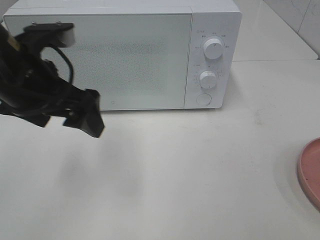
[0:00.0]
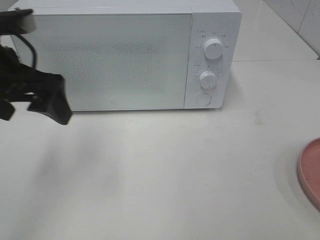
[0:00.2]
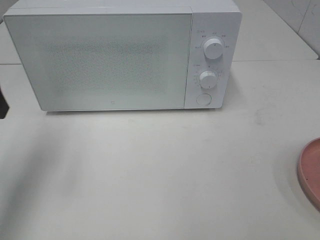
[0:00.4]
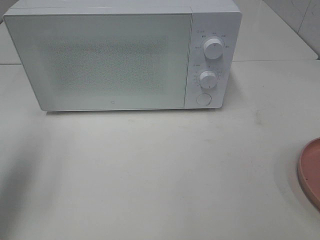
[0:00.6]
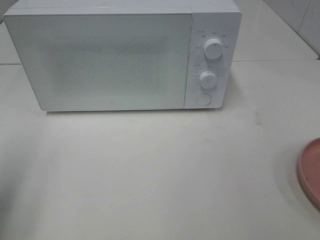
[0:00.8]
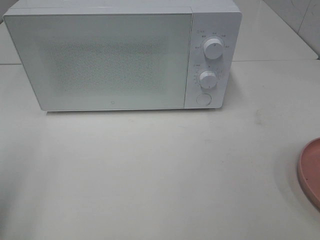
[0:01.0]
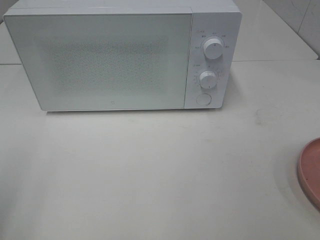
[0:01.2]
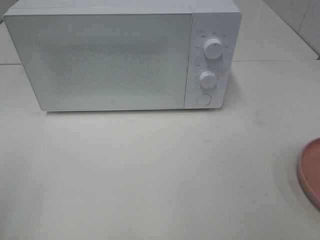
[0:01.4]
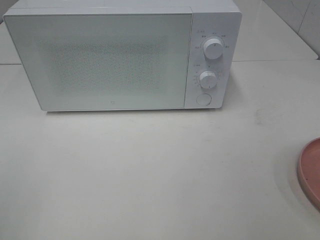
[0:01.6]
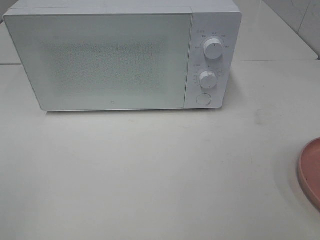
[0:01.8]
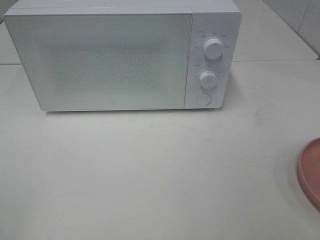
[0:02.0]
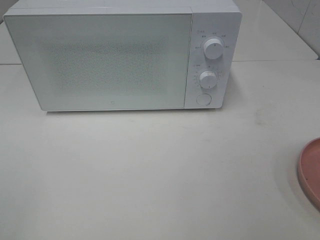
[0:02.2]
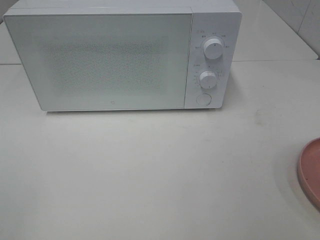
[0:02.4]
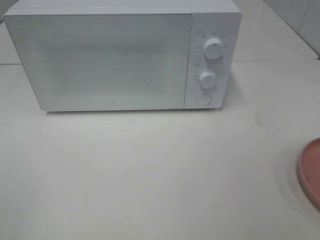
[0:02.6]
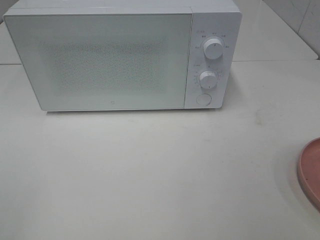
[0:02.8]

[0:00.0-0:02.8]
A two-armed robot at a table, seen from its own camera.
Task of the whole recording: Heat the burger.
0:00.0 to 0:01.4: The left gripper moves backward and to the left, about 25 cm.

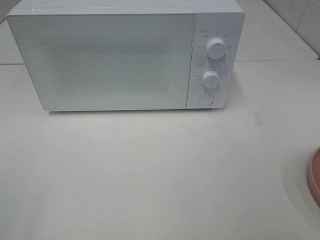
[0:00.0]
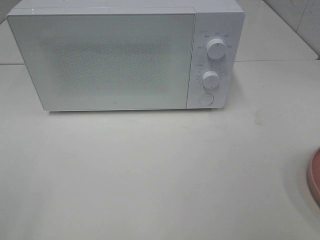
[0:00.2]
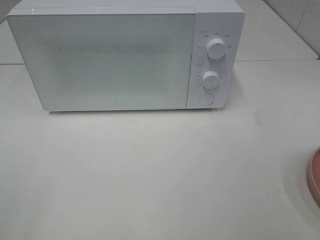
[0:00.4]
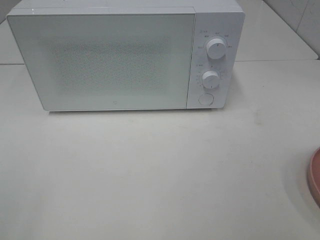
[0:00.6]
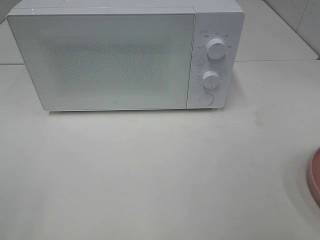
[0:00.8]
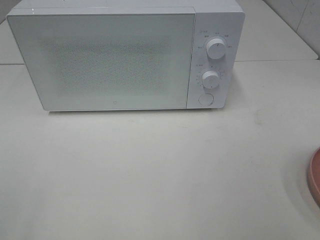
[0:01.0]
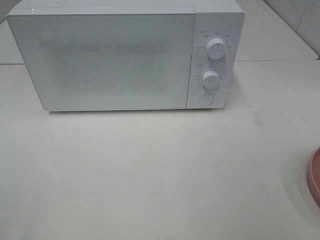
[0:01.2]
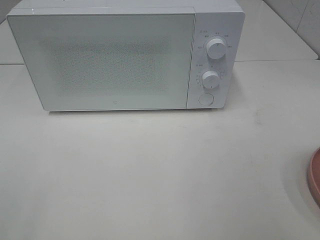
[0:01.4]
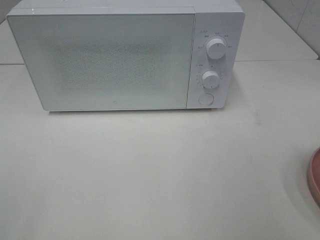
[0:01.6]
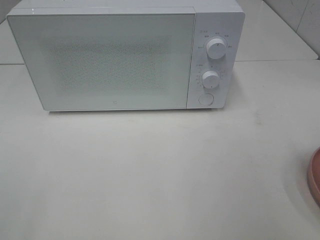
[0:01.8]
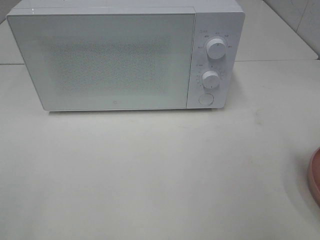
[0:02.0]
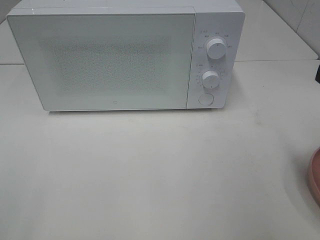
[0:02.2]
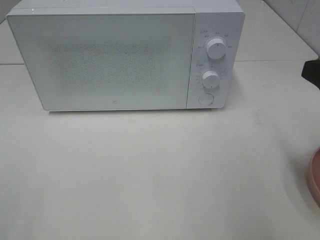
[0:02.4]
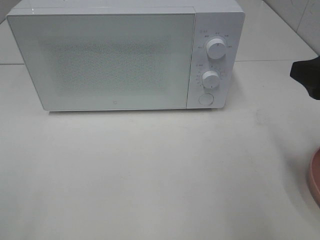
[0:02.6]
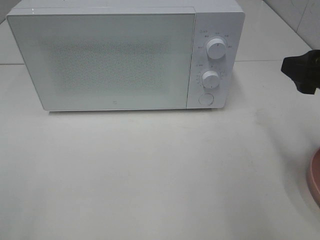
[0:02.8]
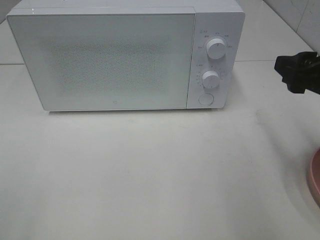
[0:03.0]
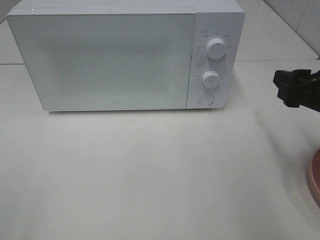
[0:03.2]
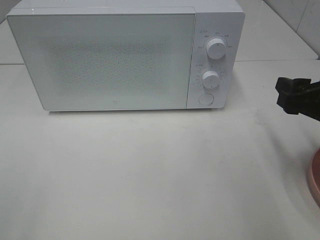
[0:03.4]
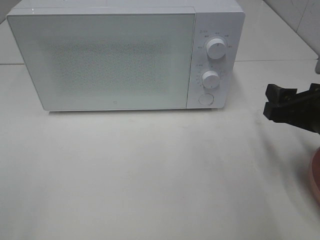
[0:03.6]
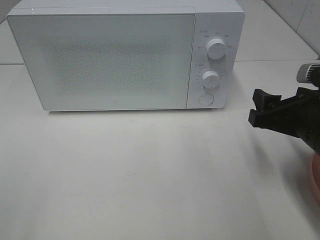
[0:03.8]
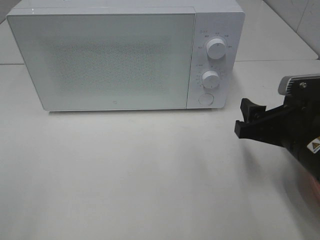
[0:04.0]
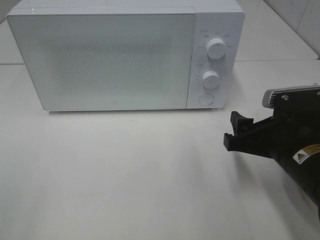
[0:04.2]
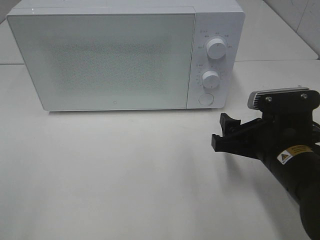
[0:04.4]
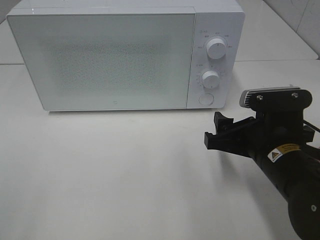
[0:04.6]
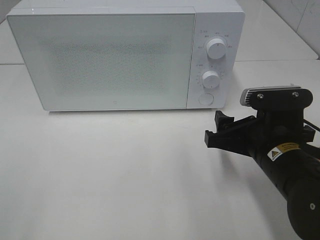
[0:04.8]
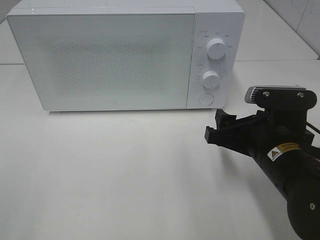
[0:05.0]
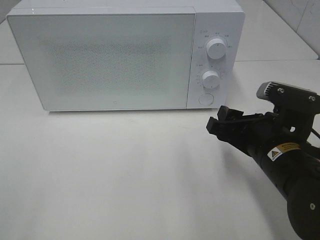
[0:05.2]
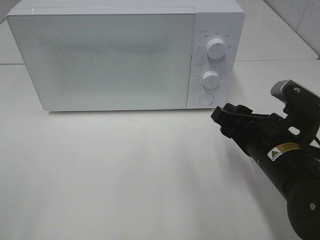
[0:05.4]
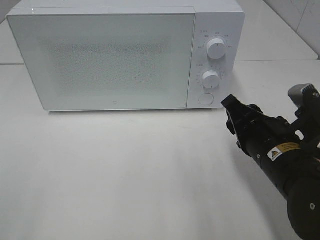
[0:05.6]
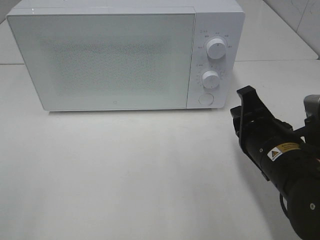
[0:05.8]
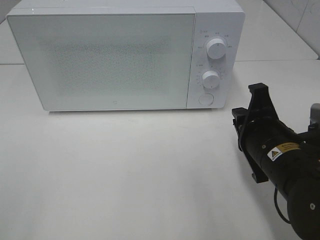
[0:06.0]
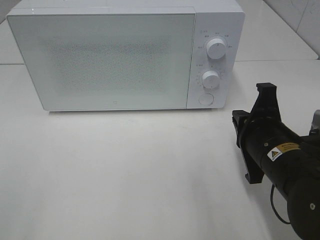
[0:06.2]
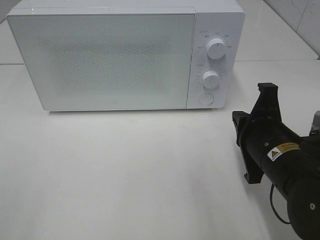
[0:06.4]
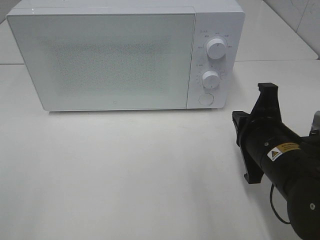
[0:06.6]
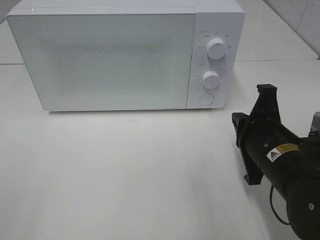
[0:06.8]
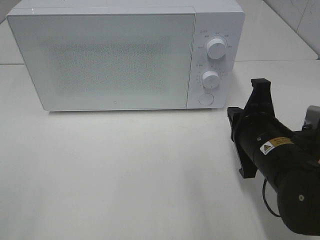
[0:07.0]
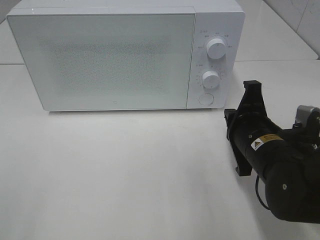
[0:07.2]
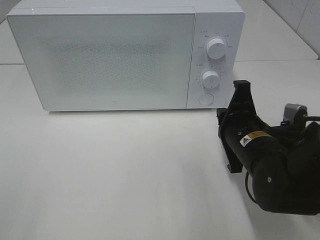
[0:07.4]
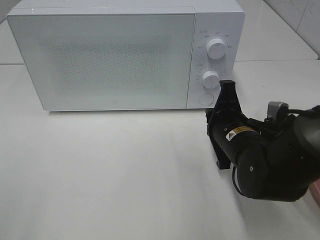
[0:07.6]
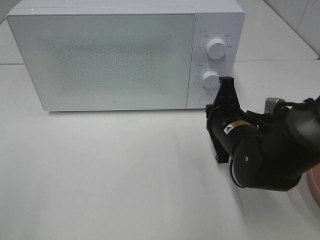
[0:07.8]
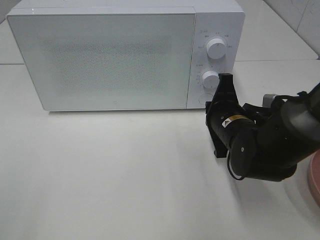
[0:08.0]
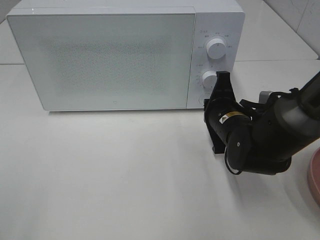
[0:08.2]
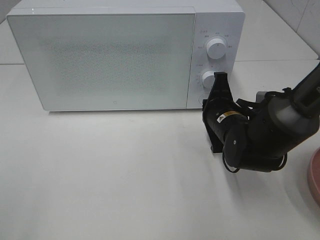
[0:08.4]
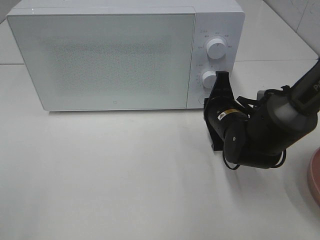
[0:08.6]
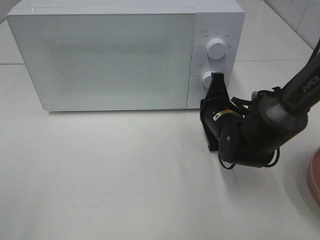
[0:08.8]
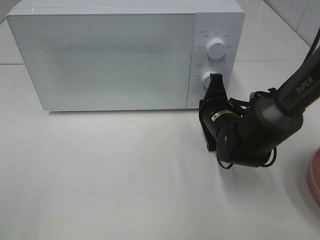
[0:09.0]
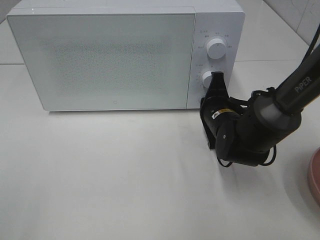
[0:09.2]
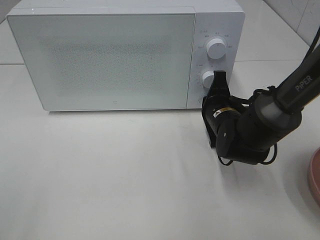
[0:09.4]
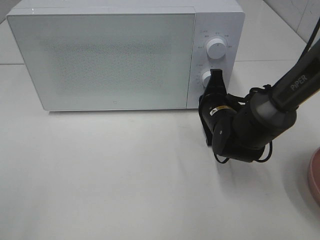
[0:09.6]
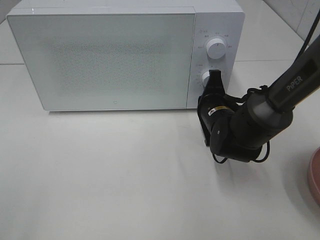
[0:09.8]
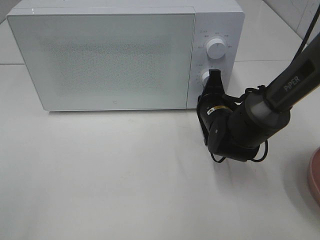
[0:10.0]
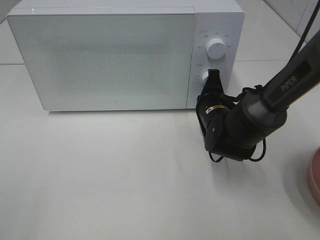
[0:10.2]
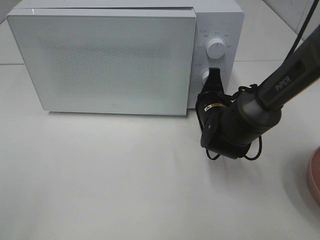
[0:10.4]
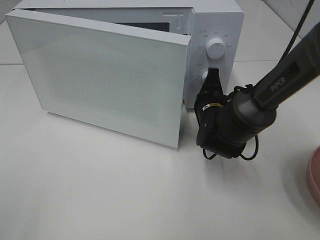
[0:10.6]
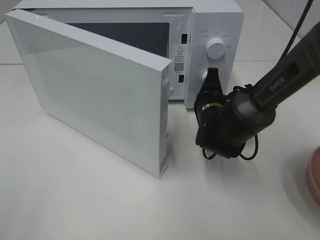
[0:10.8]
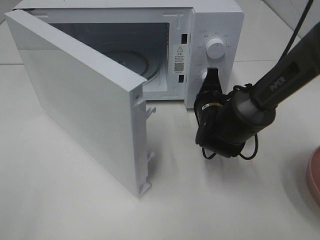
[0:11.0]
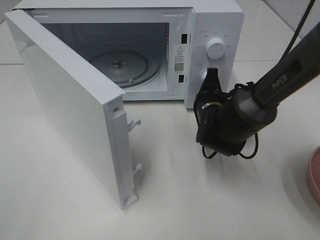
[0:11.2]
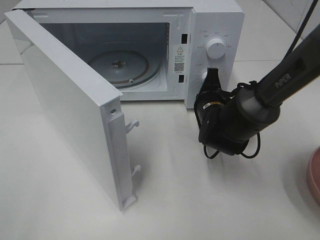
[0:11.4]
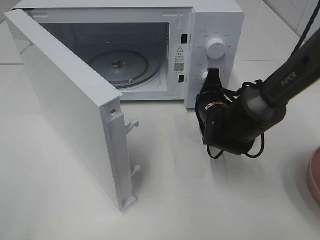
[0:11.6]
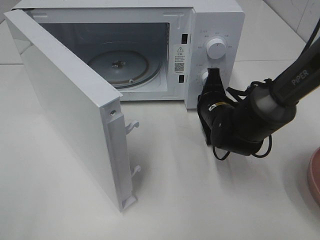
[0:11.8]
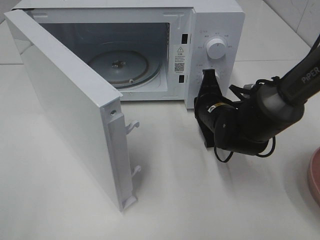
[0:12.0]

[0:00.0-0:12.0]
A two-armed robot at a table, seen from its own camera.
Task of the whole recording: Heat the burger.
Step, 0:00.0 to 0:11.8: Right hand: press the switch.
0:01.6 to 0:03.0: The right gripper moves forward and downward, some 15 cm.
0:03.0 to 0:04.4: The right gripper goes roughly 15 cm downward and to the left.
0:04.4 to 0:06.0: The right gripper closes.
0:06.0 to 0:07.6: The right gripper shifts roughly 5 cm forward.
0:07.6 to 0:09.0: The right gripper moves forward, roughly 5 cm.
0:09.0 to 0:10.4: The grippers move only a little.

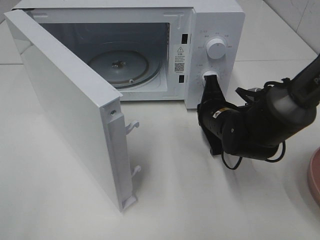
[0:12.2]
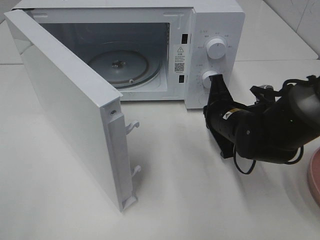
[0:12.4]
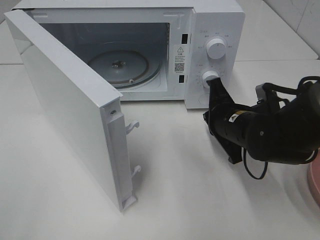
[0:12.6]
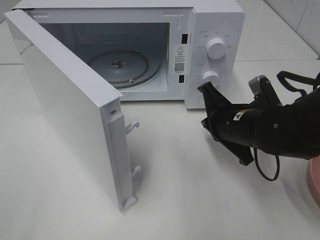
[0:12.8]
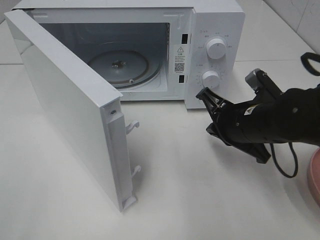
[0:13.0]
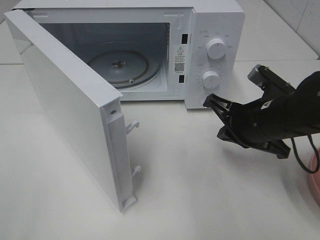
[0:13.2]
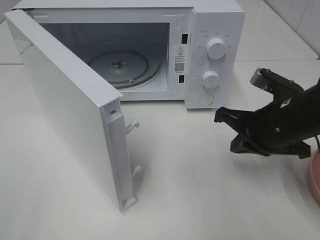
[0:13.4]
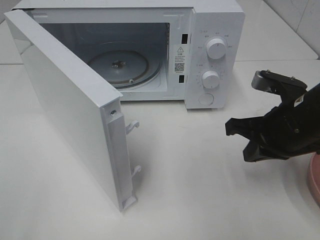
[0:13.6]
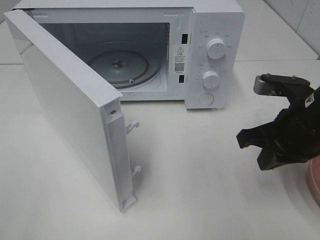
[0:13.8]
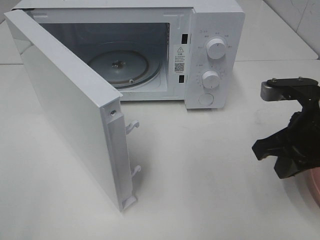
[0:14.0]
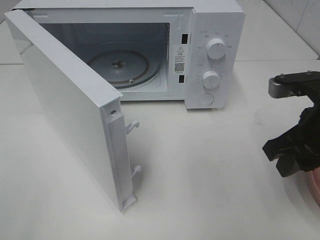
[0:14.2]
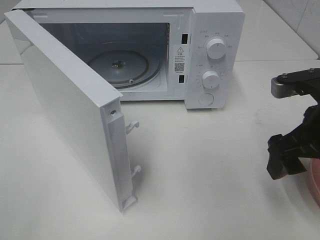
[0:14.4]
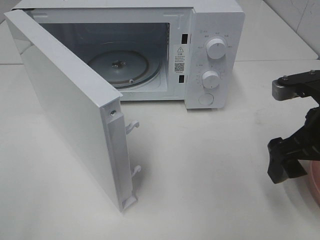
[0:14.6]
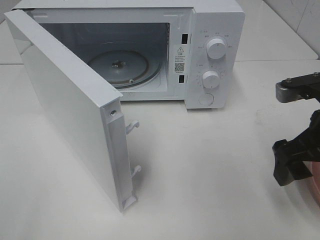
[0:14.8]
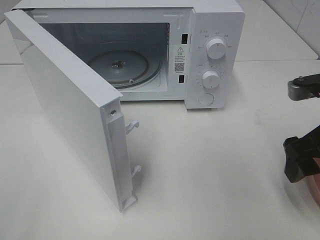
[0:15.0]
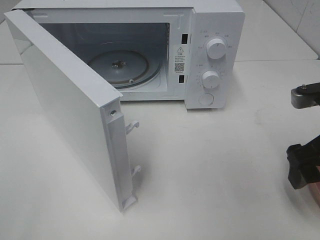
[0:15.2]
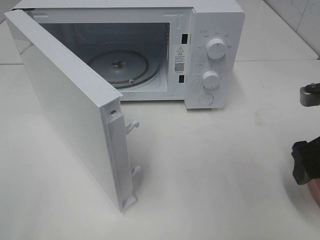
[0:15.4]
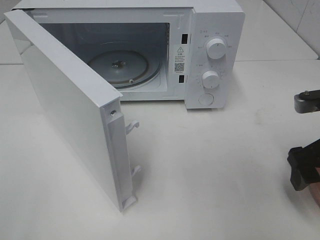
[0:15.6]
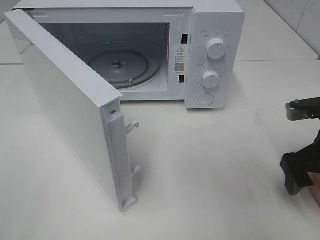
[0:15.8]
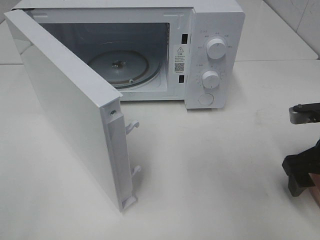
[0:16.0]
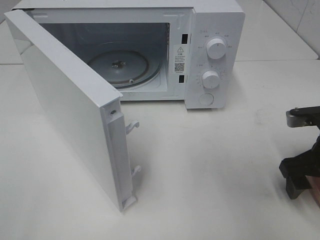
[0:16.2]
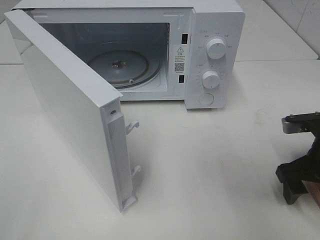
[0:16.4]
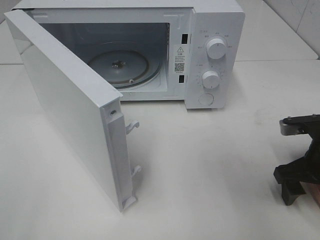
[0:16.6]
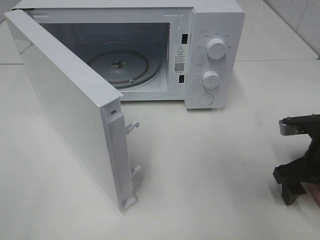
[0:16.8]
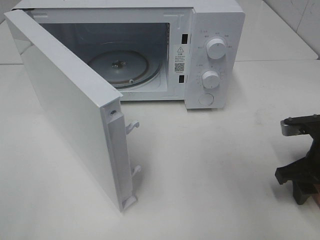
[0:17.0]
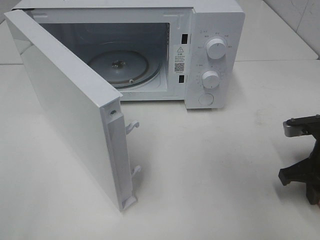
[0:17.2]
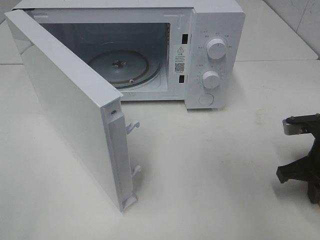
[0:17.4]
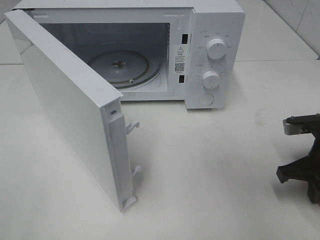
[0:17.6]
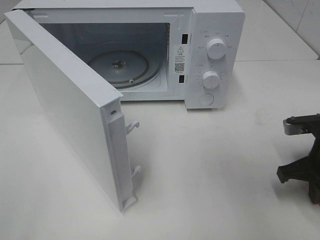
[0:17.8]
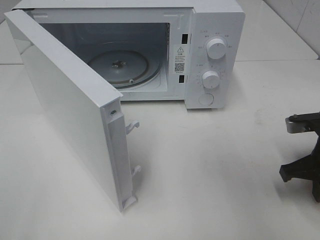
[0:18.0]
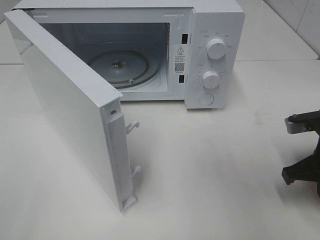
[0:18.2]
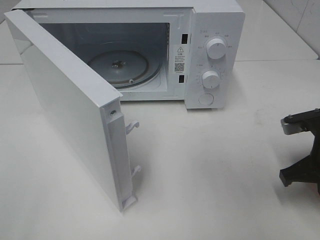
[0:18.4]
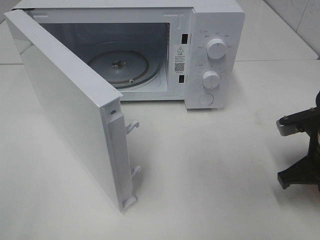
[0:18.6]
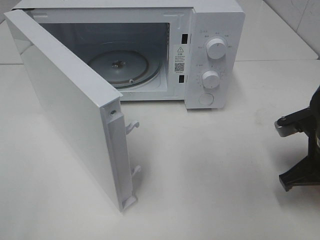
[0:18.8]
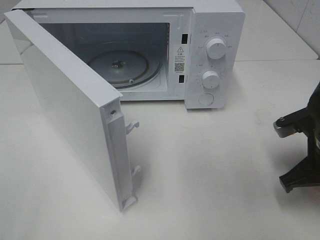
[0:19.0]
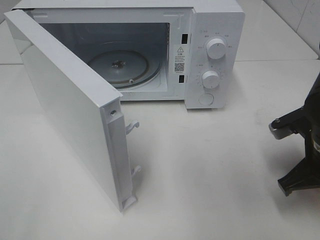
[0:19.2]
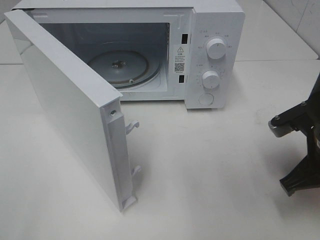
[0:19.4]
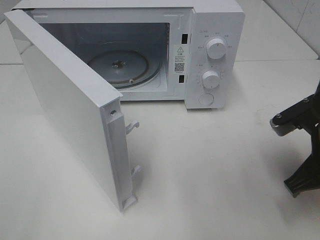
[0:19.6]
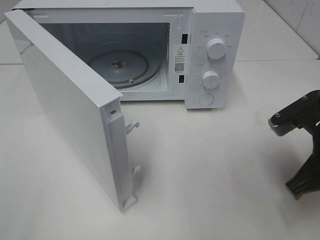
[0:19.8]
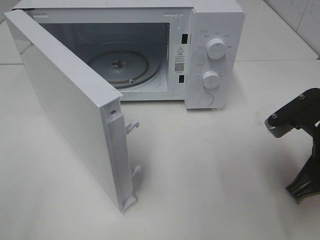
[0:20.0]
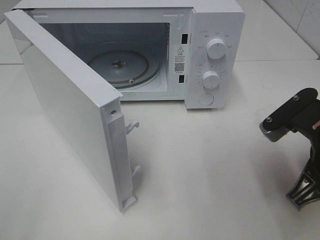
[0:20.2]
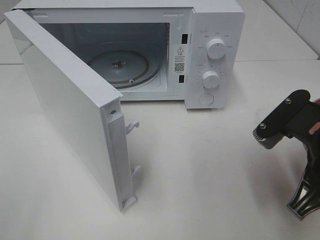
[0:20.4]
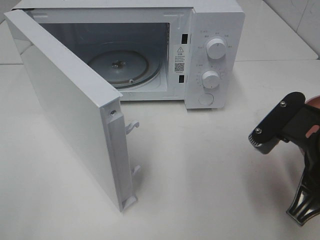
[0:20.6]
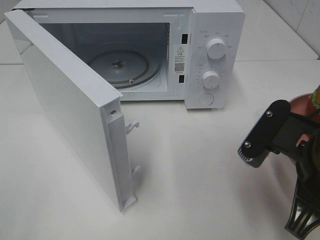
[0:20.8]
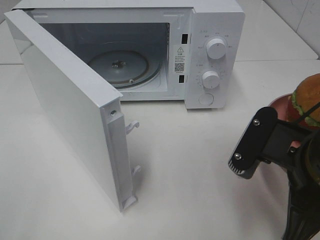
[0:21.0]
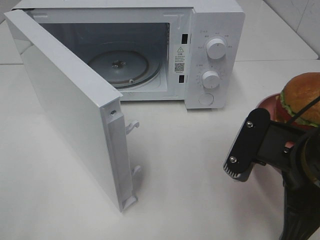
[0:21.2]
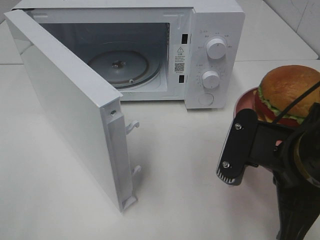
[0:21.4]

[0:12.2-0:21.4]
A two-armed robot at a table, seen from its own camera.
Task of the whole recording: Heat the burger.
Step, 0:12.2 to 0:17.4: Right hand: grab the plate with the hamburger.
0:12.2 to 0:13.8: The right gripper heads upward, backward and to the right, covering about 15 cm.
0:13.8 to 0:15.2: The right gripper shifts by some 5 cm, and opens its fingers.
0:15.2 to 0:16.8: The right gripper heads downward, covering about 10 cm.
0:16.8 to 0:18.4: The right gripper closes up.
0:18.4 to 0:19.8: The right gripper ends up some 10 cm from where it was.
0:19.8 to 0:21.4: The right gripper goes approximately 10 cm to the left and backward.
